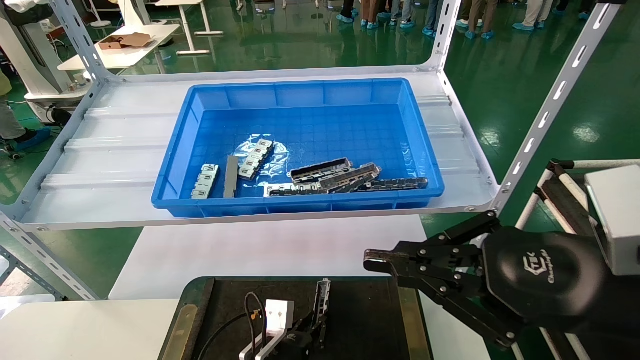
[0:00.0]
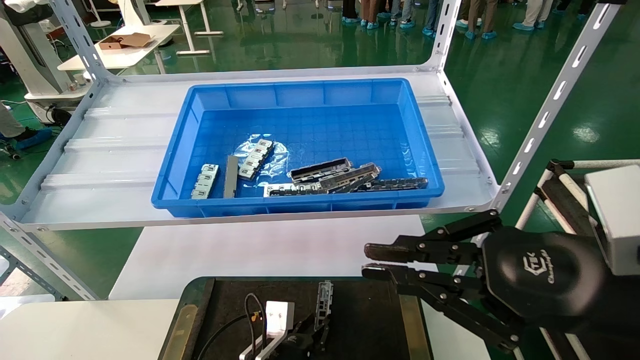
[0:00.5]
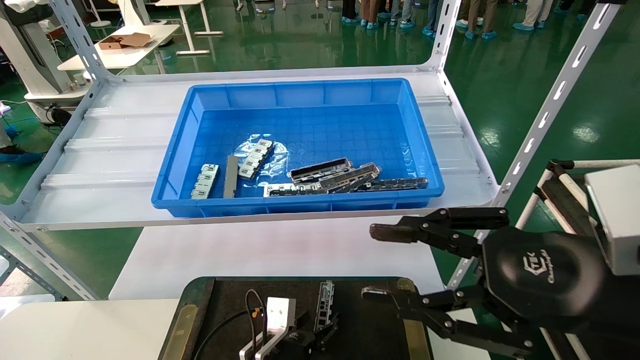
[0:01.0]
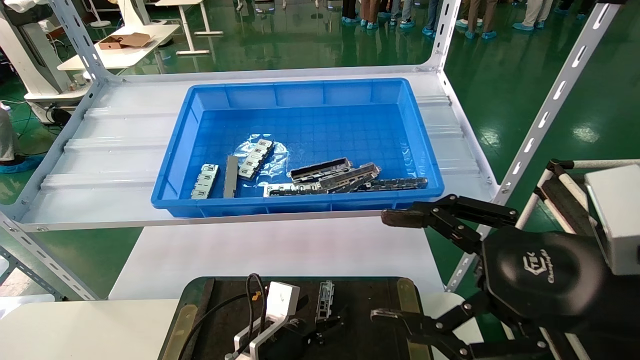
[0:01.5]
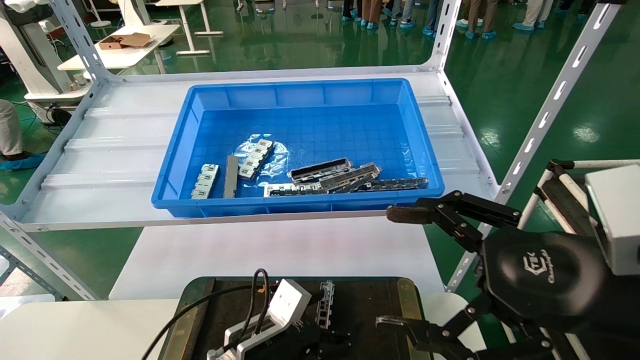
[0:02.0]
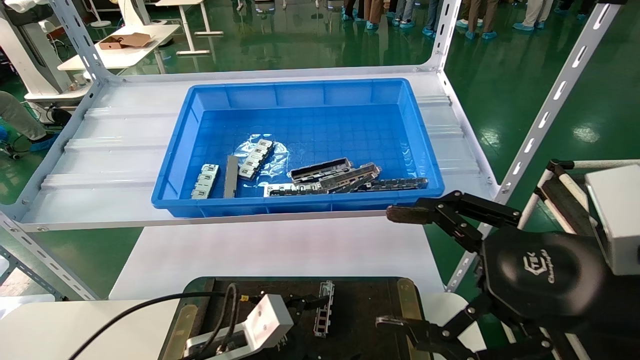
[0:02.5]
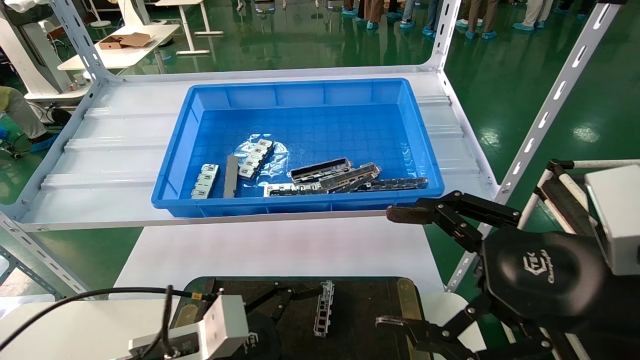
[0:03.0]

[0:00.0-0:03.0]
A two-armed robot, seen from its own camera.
Task of the whole recording: Grasp the part with one hand and place it on the black container.
0:00.0 to 0:01.5: The right gripper opens. The left gripper opens its fingers.
0:01.5 to 0:03.0: The left gripper heads upward, backward and to the left, covering roughly 15 cm.

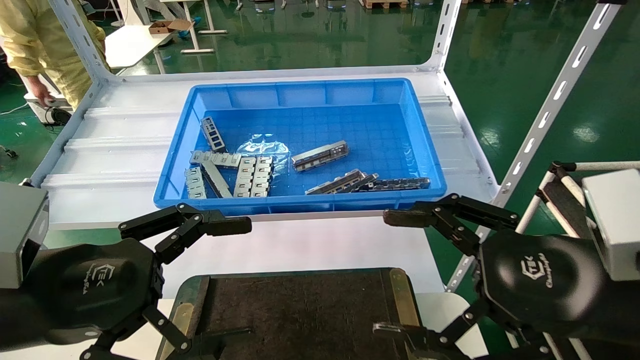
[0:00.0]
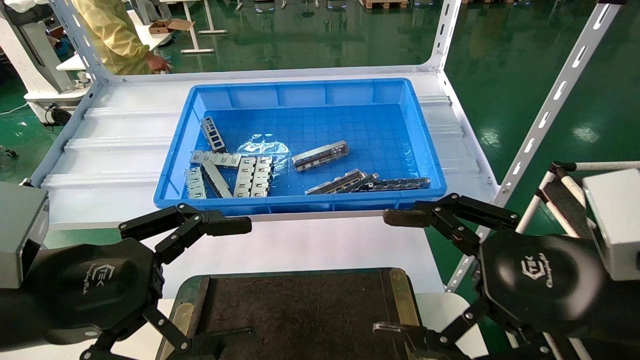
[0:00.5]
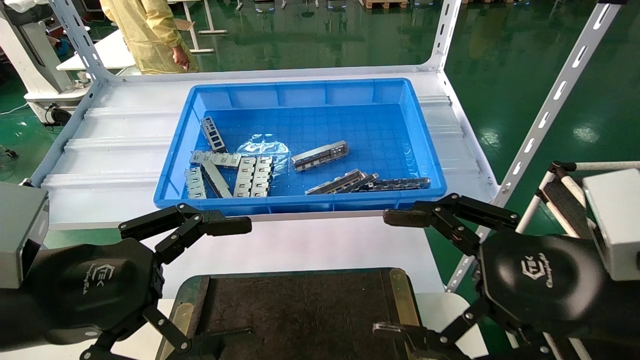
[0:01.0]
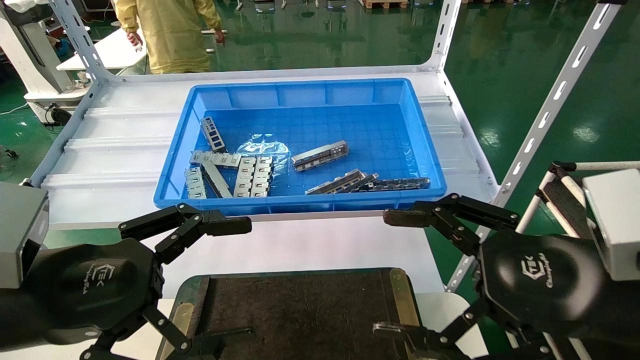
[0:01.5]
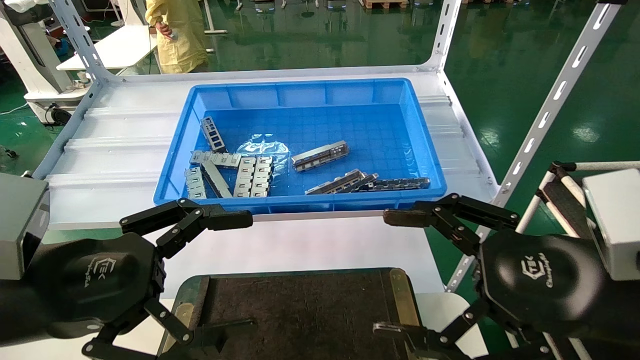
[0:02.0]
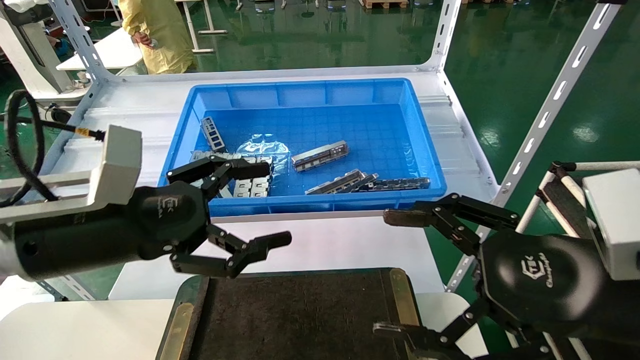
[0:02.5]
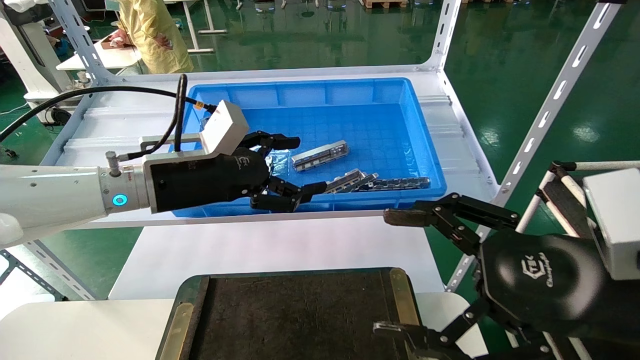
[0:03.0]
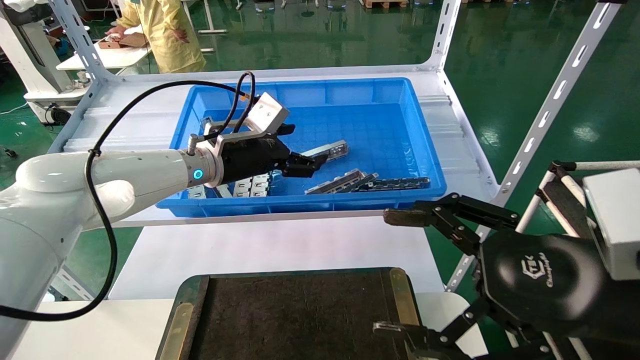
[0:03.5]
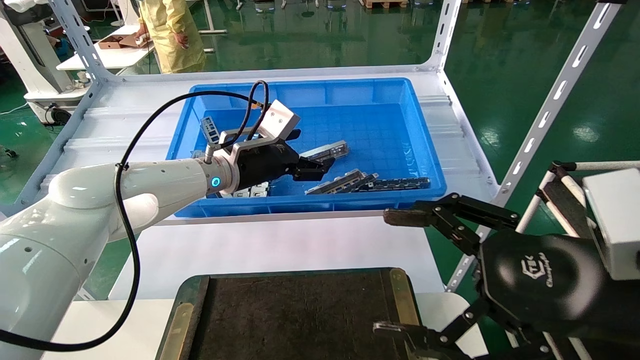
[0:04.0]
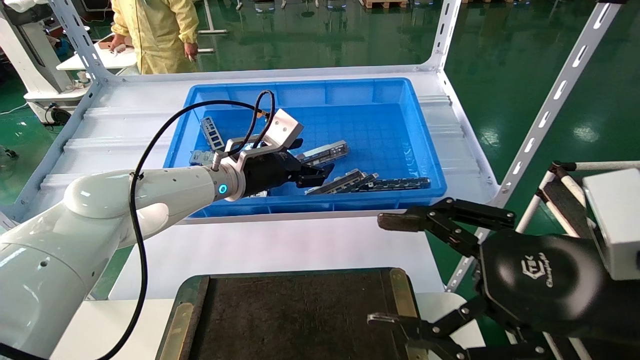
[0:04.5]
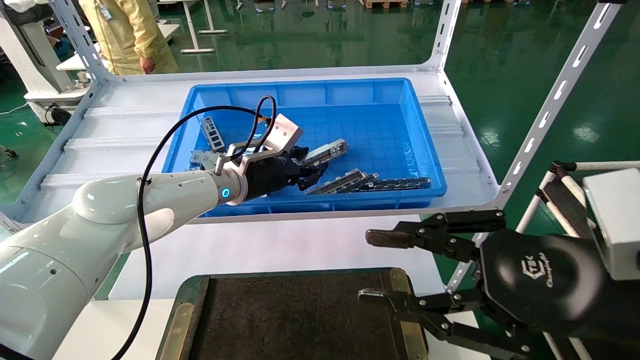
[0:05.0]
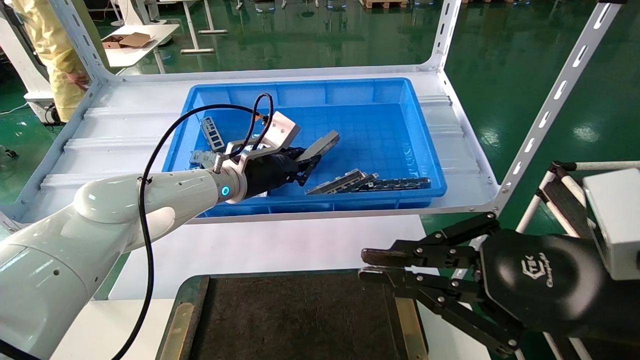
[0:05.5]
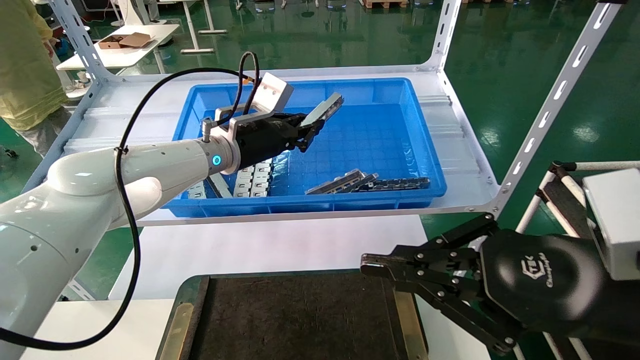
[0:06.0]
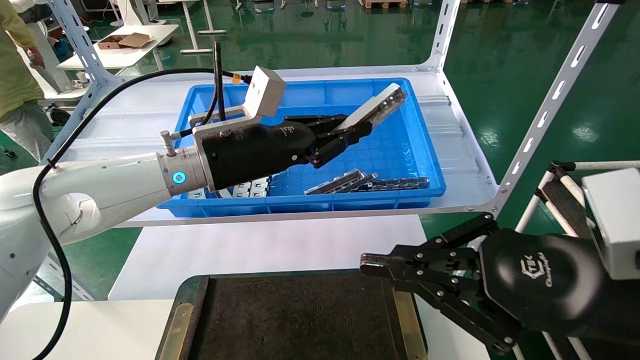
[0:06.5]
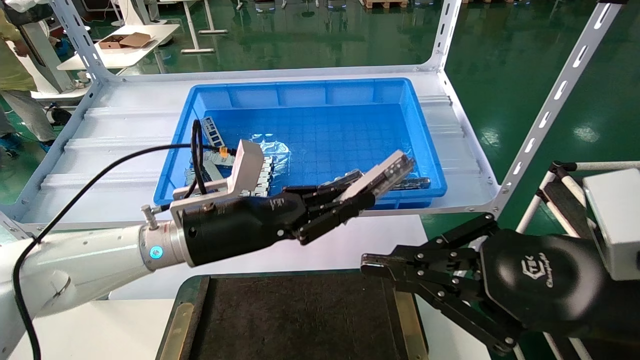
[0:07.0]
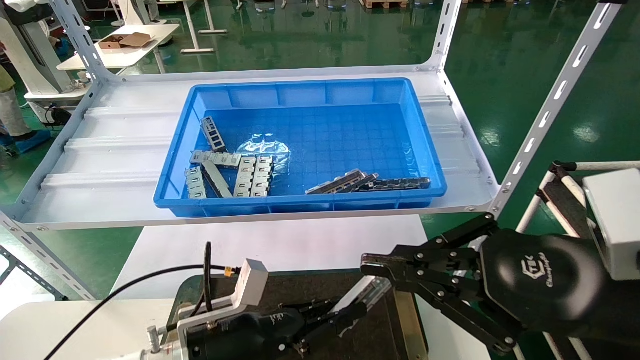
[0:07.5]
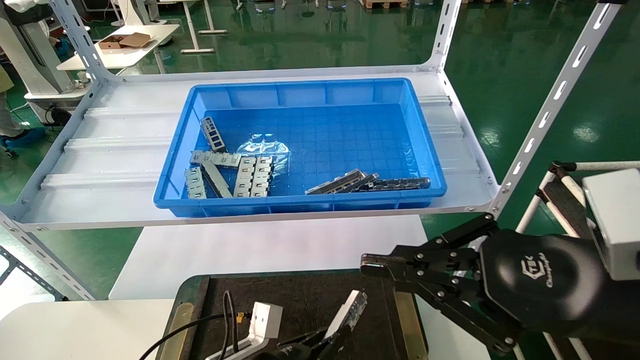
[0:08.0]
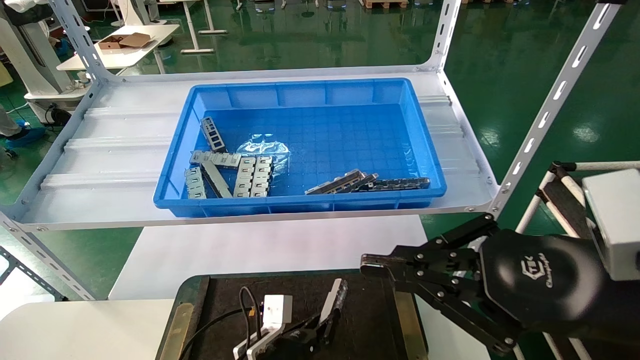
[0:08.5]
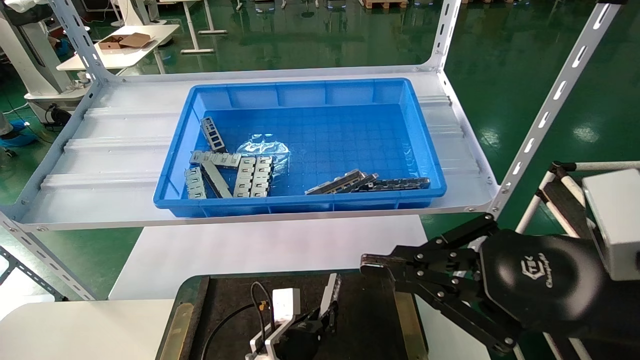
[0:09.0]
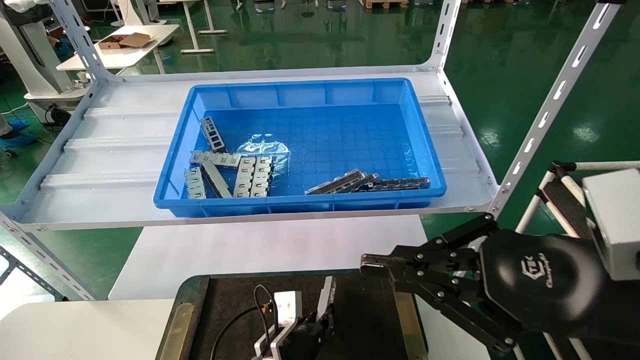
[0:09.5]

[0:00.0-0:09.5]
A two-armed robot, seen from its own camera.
Task of the whole recording: Grasp the part with one hand and place it on the black container.
Step, 0:02.5 to 0:06.0: Pick up the front USB bracket from the feeding area.
0:00.0 to 0:02.0: Both grippers stay about where they are.
0:02.0 to 0:04.0: The left gripper travels forward and to the right by about 30 cm.
0:04.0 to 0:05.5: The right gripper closes. Meanwhile the left gripper closes.
0:05.5 to 0:07.5: The left gripper moves downward and backward, approximately 25 cm.
0:07.5 to 0:09.5: The left gripper moves downward, to the right and forward, some 15 cm.

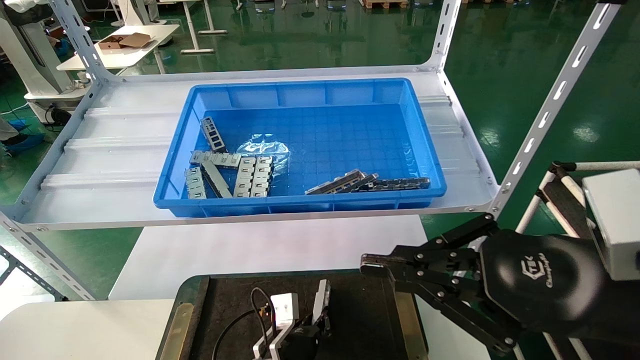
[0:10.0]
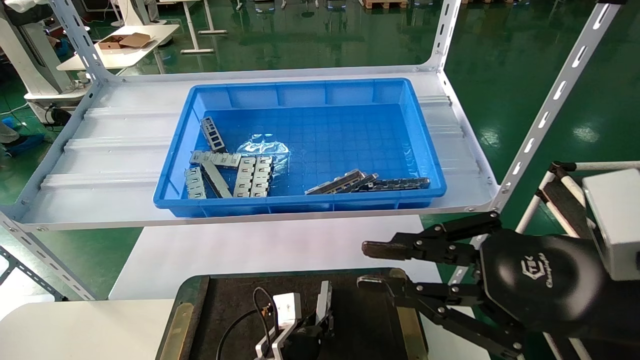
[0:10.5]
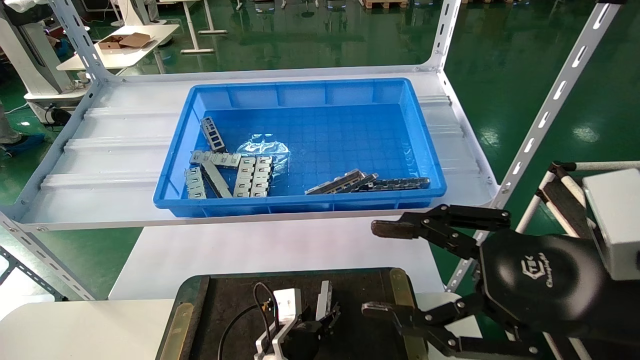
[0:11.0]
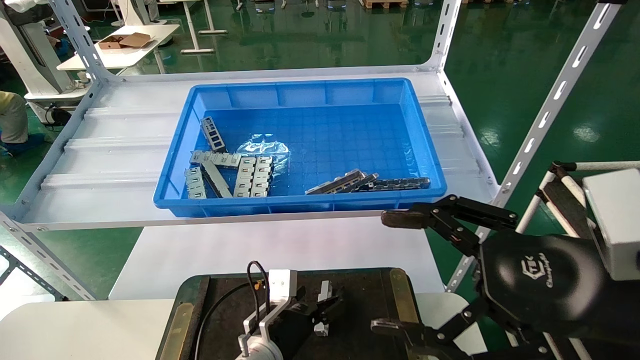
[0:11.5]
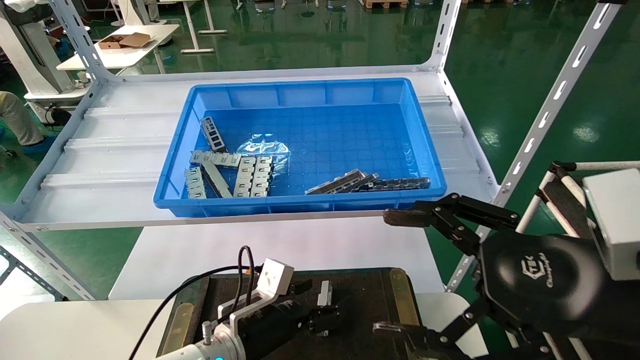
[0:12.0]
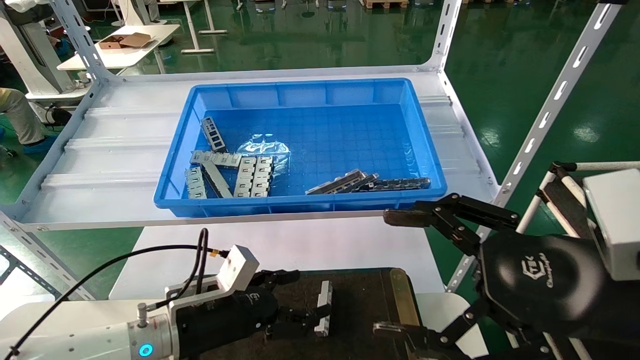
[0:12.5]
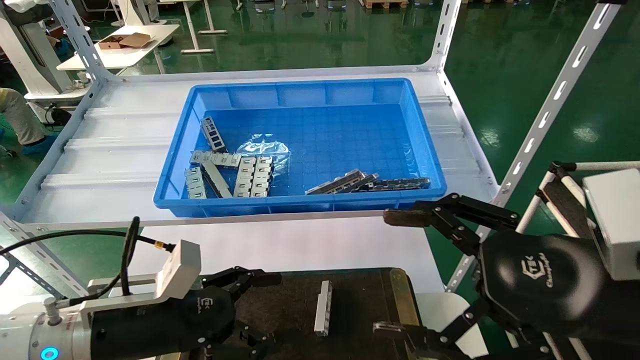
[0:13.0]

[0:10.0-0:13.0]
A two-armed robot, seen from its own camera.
Task of the whole recording: Grasp the part with one hand and place it on the black container.
0:10.0 to 0:11.5: The left gripper is displaced upward by roughly 5 cm, and opens its fingers, while the right gripper opens up.
0:11.5 to 0:13.0: The left gripper is displaced to the left, upward and backward by roughly 20 cm.
